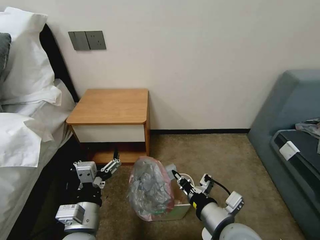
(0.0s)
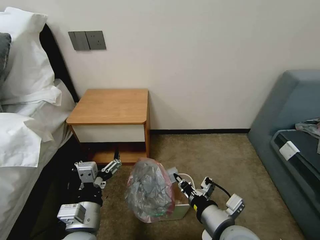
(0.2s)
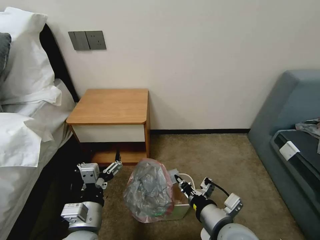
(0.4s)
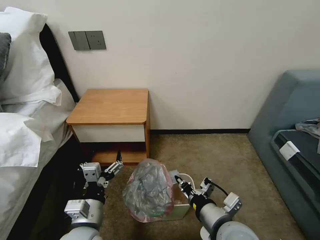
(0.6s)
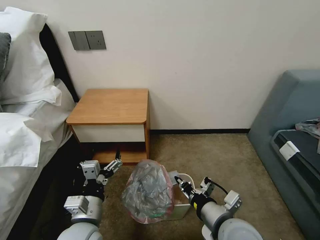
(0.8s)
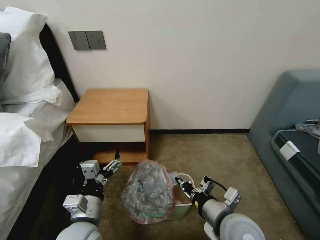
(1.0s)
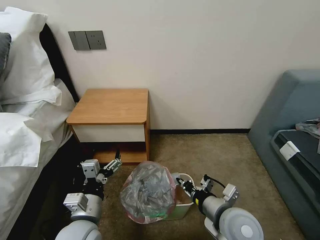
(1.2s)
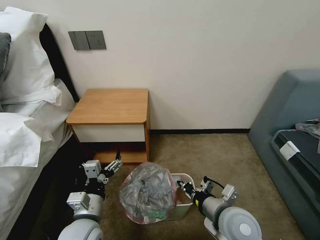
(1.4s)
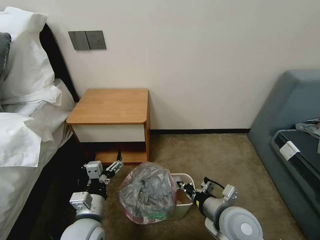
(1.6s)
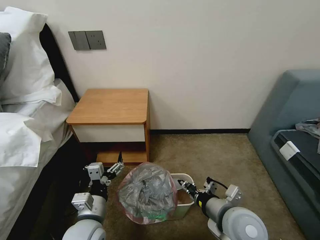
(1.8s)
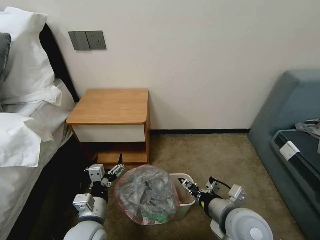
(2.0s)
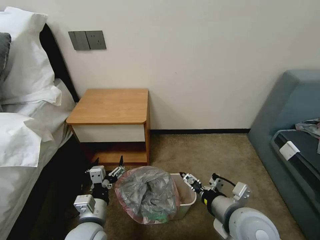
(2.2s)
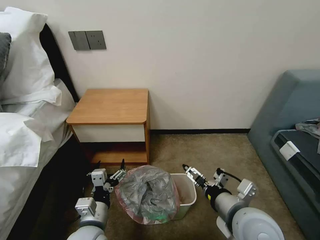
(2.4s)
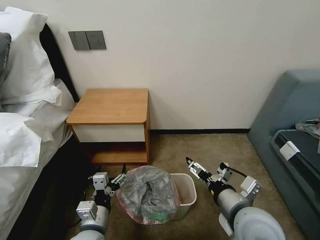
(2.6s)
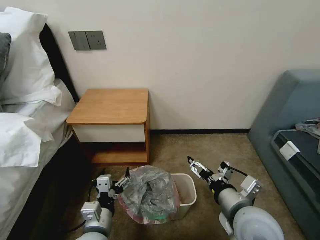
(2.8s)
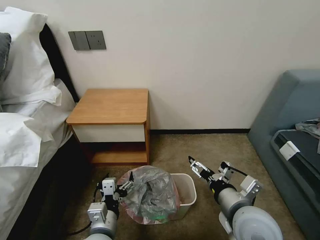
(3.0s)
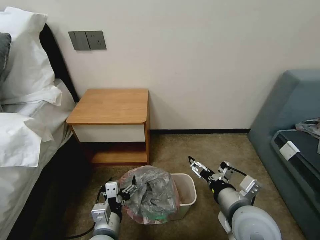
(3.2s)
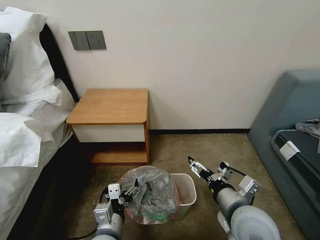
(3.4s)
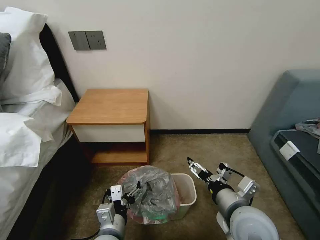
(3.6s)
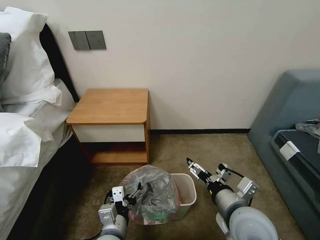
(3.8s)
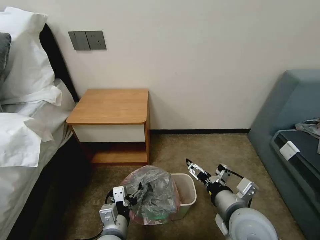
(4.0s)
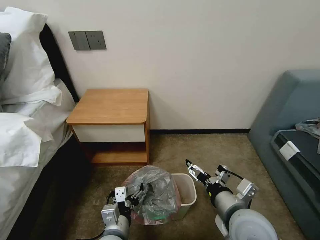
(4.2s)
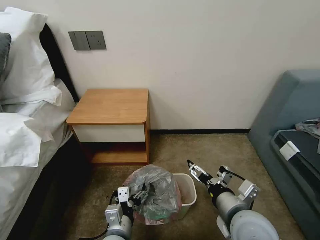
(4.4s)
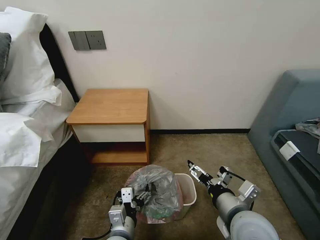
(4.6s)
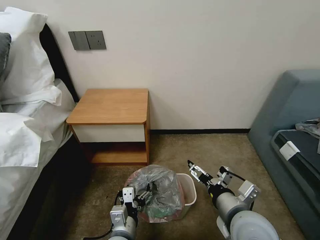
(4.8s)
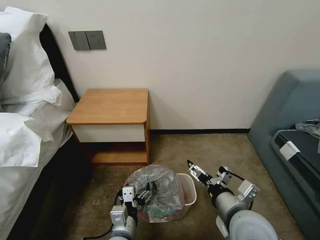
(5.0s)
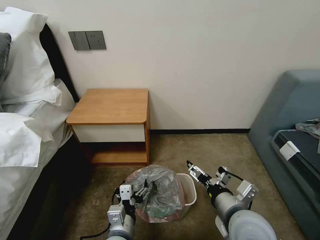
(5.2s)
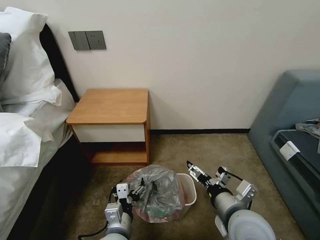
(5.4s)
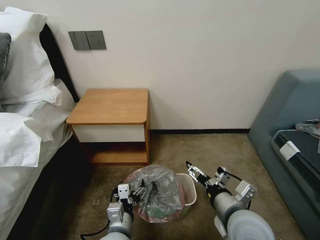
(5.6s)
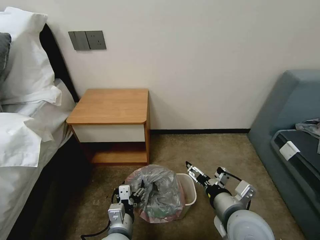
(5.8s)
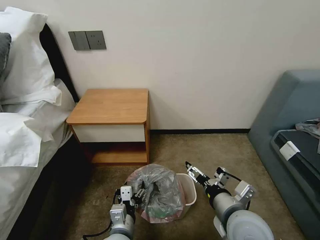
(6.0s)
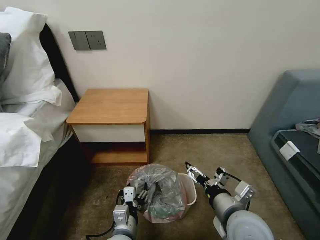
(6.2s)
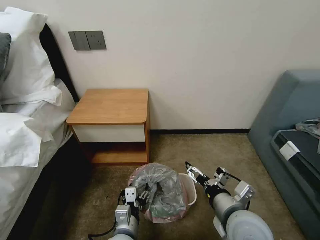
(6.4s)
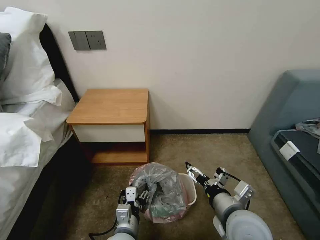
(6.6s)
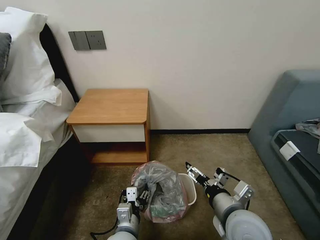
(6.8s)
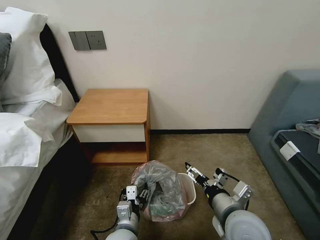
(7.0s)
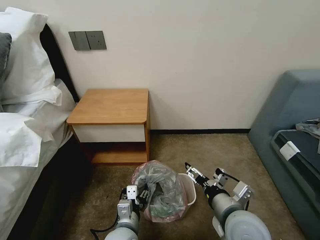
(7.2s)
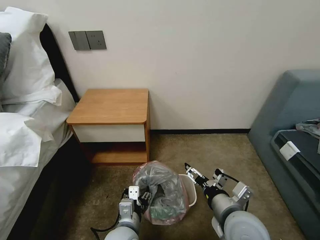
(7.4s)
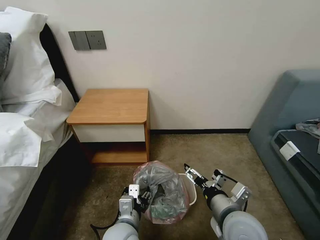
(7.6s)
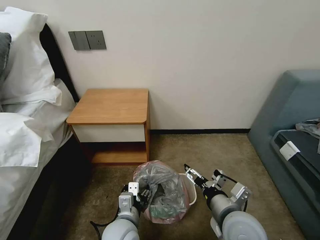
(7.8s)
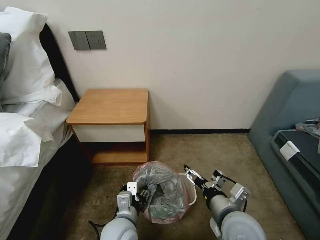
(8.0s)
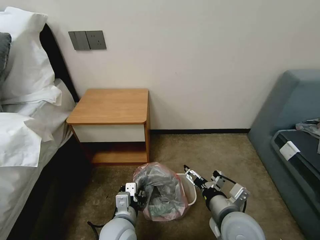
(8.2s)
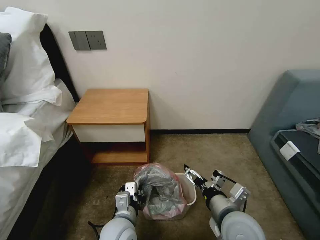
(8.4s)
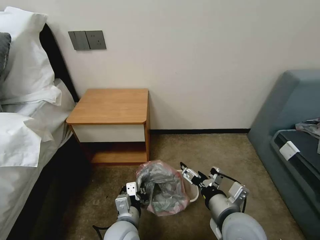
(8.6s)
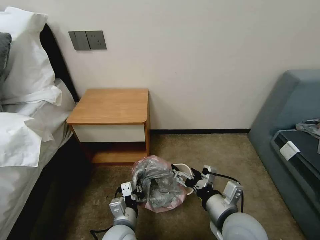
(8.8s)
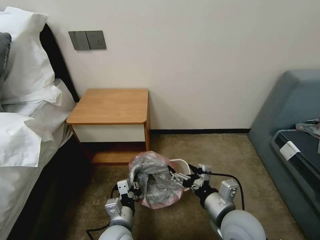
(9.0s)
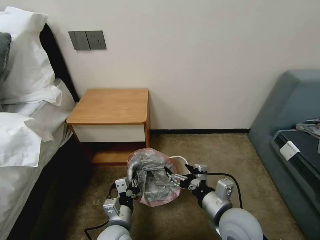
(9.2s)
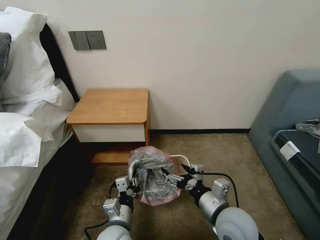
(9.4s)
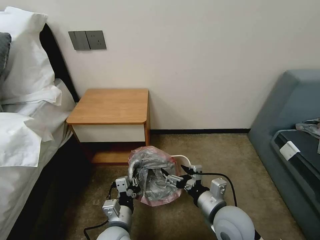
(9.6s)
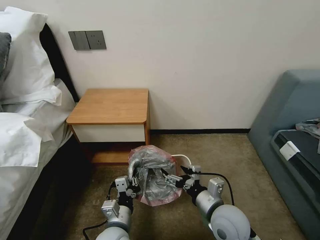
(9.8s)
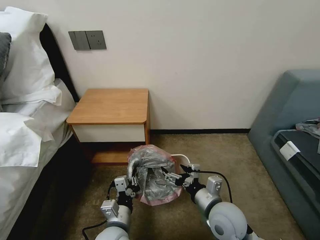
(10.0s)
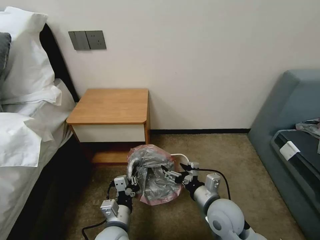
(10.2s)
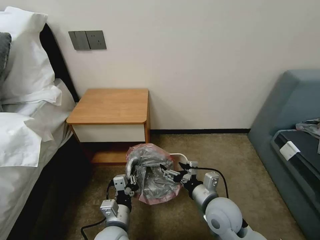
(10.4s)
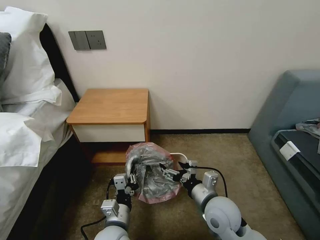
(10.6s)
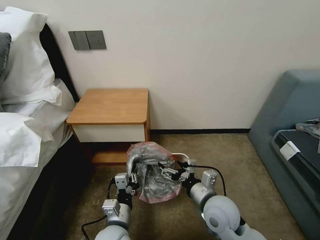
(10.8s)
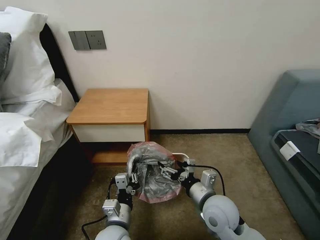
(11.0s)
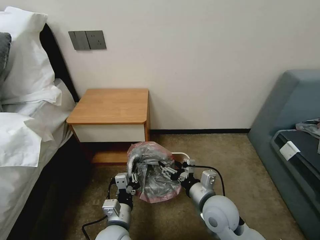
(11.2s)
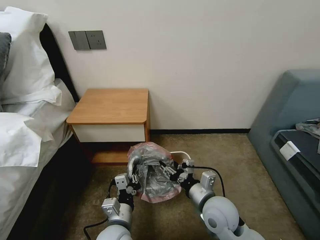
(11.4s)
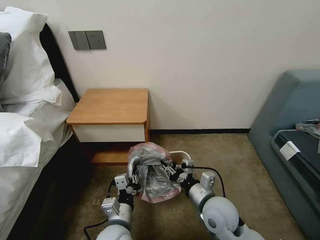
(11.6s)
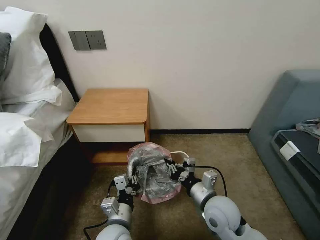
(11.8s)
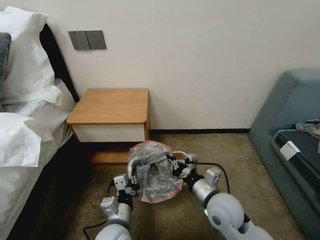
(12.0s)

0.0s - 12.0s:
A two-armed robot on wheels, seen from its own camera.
Task of the whole recording: Pick up the garbage bag from the table and place it over the trash can.
0.0s - 1.6s: The right gripper shifts by some 5 cm; the left gripper shifts roughly 5 cm downward.
1.6s - 3.0s: The right gripper opens, while the left gripper shifts by approximately 5 cm.
3.0s - 6.0s: The grippers make only small movements.
6.0s - 7.6s: The grippers make only small movements.
7.6s - 9.0s: The left gripper closes up.
9.0s - 10.4s: The right gripper shifts by approximately 5 cm.
10.4s - 12.0s: The right gripper closes its fingers.

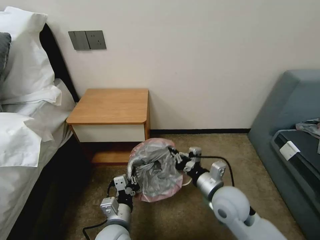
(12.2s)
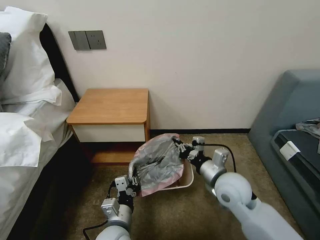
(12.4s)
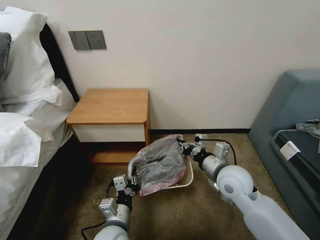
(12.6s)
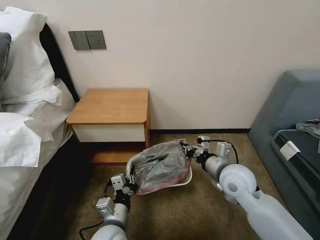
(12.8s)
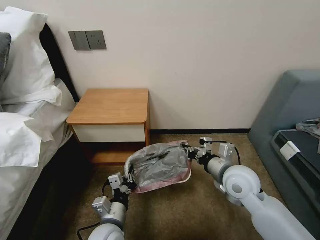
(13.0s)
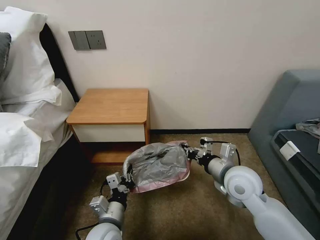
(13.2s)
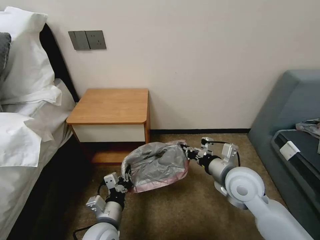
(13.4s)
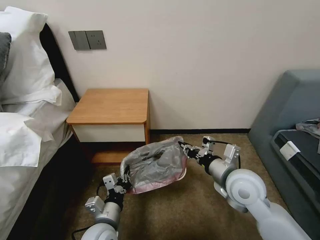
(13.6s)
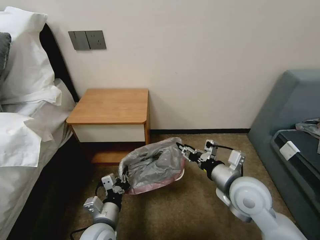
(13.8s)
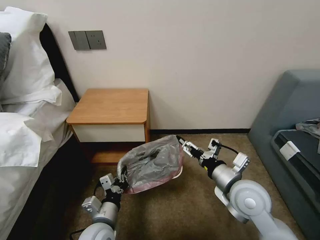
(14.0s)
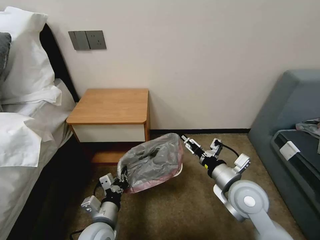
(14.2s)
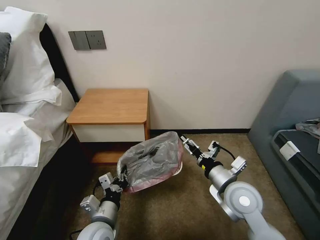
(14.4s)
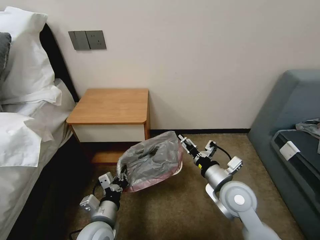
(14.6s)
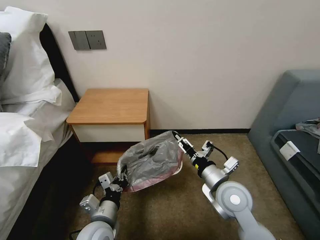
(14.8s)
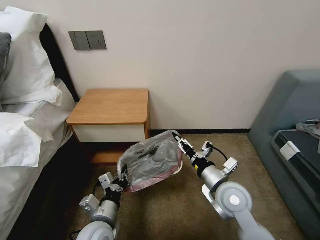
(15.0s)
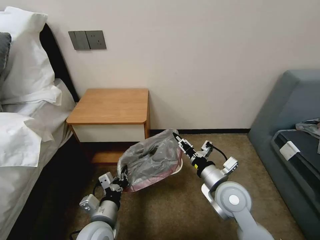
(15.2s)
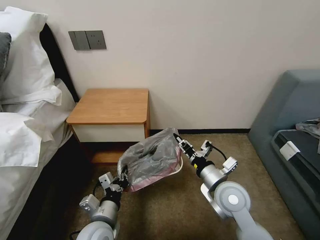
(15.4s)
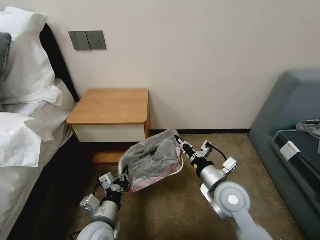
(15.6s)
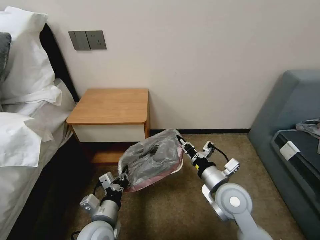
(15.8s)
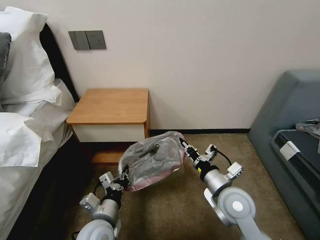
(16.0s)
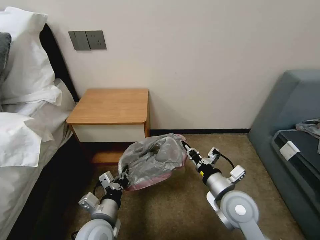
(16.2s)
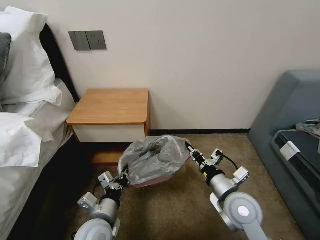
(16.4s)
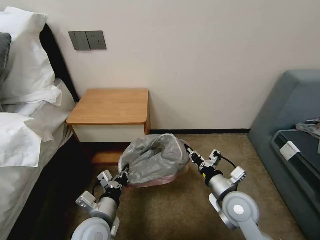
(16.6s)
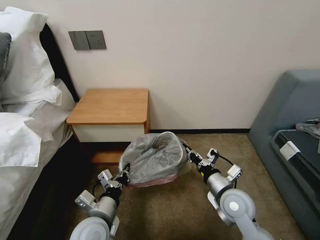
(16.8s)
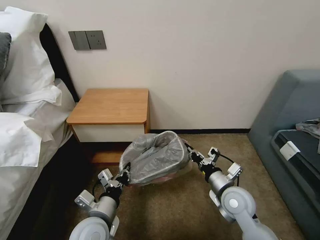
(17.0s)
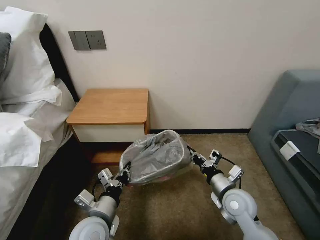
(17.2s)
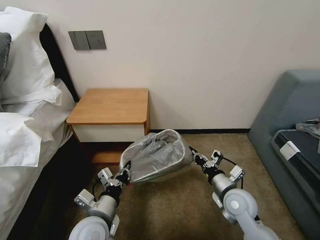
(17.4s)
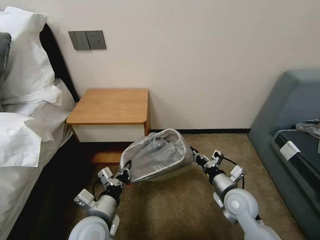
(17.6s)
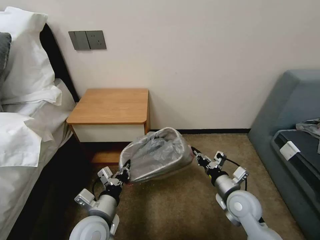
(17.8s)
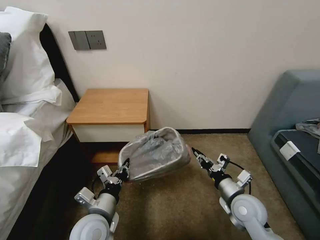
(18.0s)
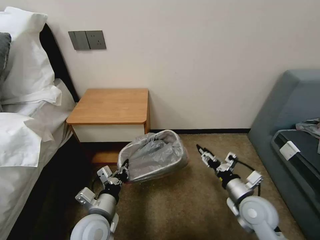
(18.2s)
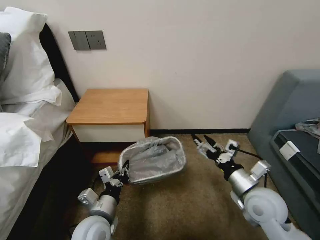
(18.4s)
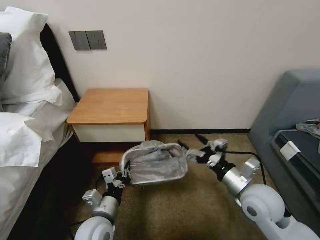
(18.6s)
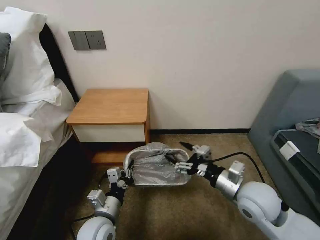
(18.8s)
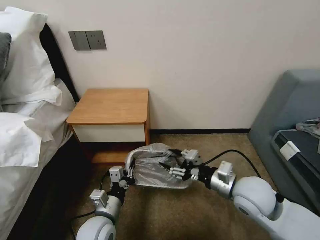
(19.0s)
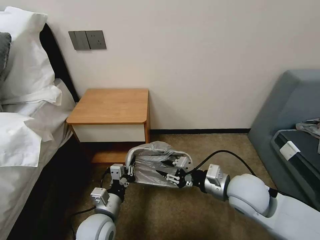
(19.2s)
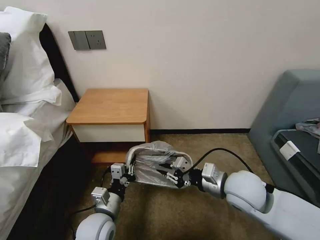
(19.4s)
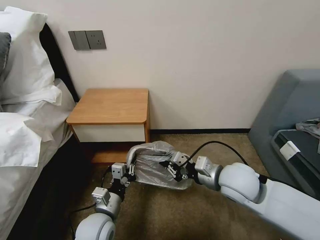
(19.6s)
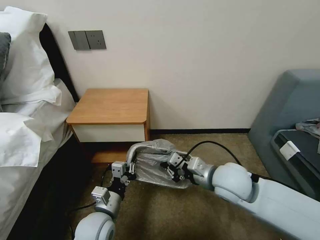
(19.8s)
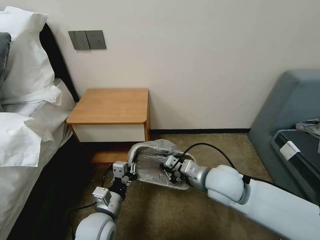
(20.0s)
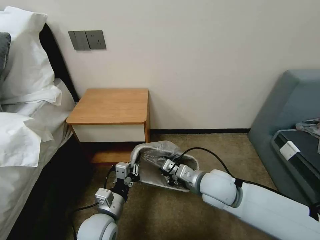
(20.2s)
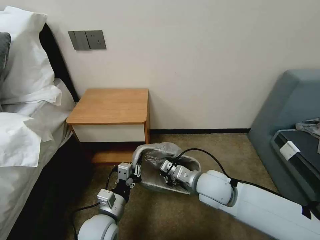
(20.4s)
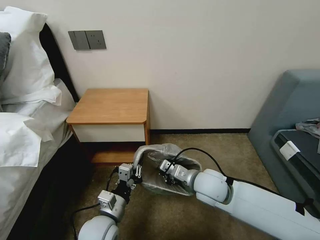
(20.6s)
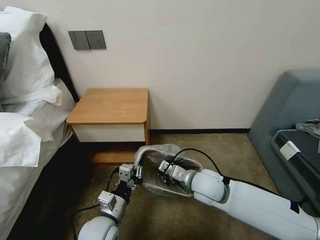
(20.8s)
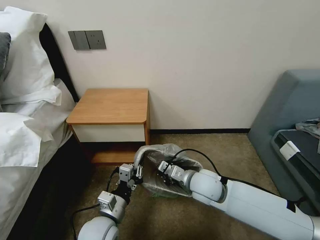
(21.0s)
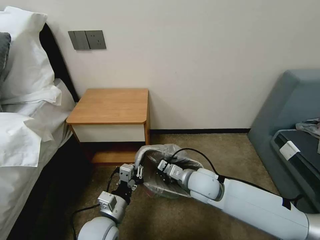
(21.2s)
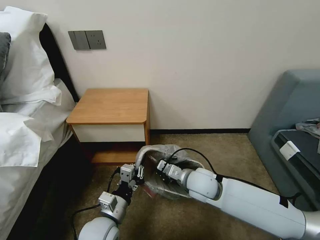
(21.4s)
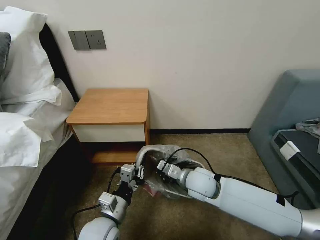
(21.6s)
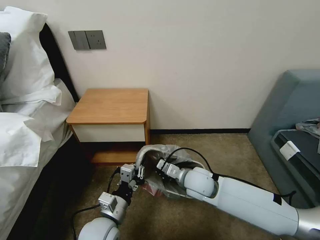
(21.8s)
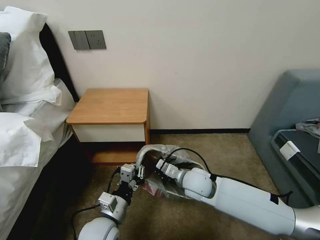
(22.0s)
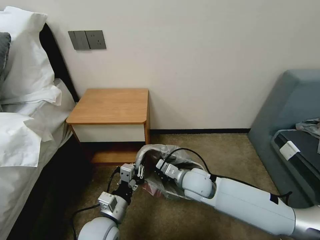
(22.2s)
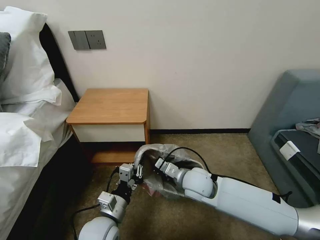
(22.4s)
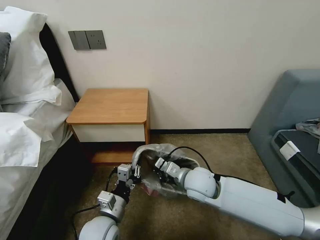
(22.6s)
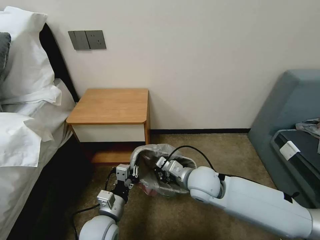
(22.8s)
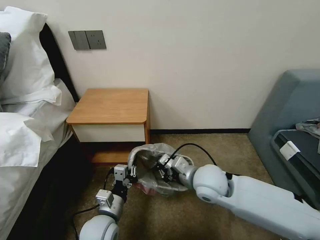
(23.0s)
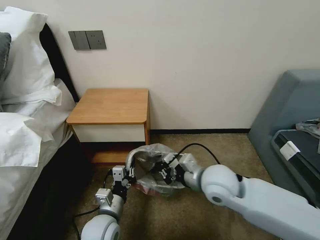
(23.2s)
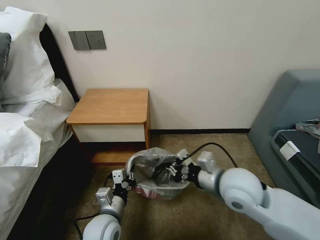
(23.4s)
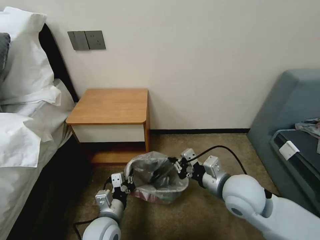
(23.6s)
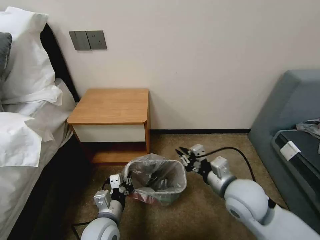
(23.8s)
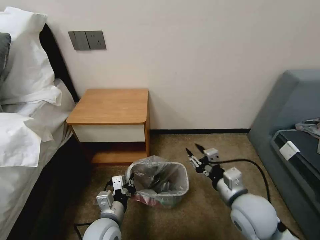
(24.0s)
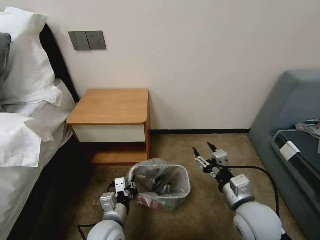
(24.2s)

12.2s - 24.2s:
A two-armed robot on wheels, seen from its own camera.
Task of the whole recording: Pick up the garbage bag from the table and place it over the trash can.
12.2s - 13.8s: The right gripper moves approximately 5 cm, and opens up.
13.8s - 15.2s: The right gripper shifts by roughly 5 cm, and opens, then closes once more.
15.2s - 16.6s: The right gripper closes up.
16.6s - 18.2s: The right gripper goes roughly 5 cm to the right, and opens up.
18.2s - 19.8s: The right gripper heads upward and to the left, covering some 15 cm, and closes up.
19.8s - 21.2s: The right gripper goes approximately 10 cm downward and to the left.
21.2s - 22.6s: The grippers stay close to where they were, moving slightly.
22.6s - 24.2s: The right gripper heads to the right and backward, covering approximately 15 cm, and opens up.
